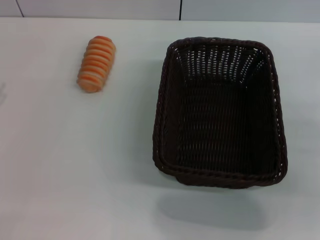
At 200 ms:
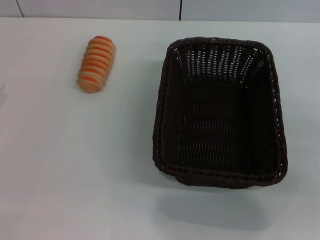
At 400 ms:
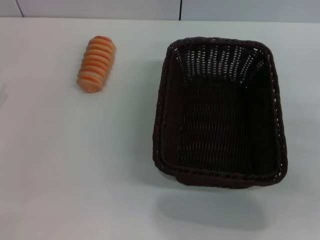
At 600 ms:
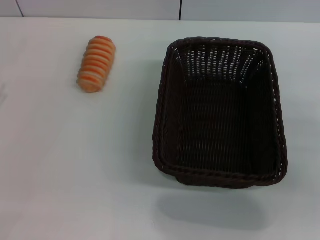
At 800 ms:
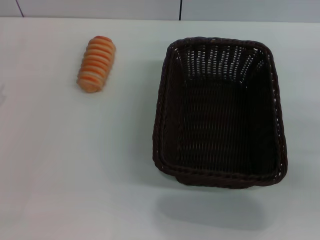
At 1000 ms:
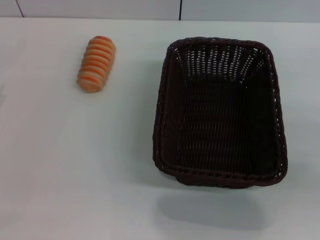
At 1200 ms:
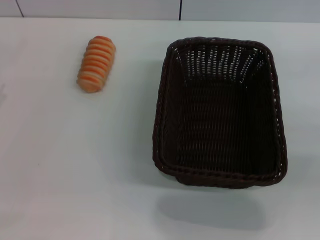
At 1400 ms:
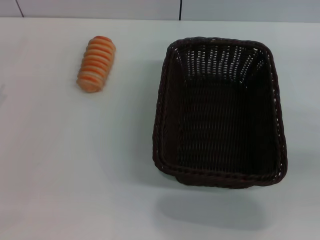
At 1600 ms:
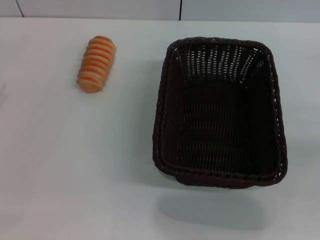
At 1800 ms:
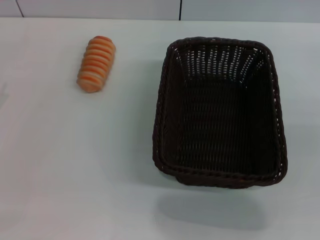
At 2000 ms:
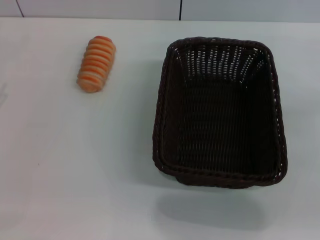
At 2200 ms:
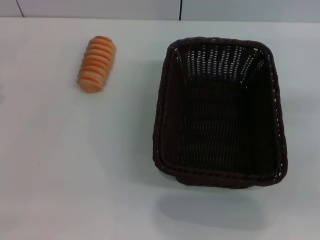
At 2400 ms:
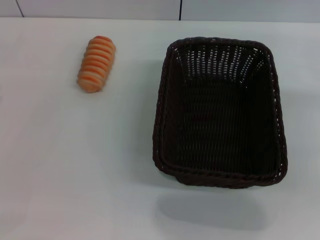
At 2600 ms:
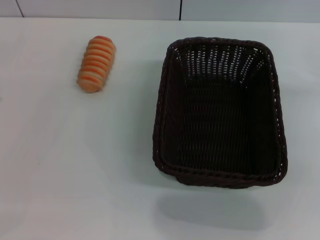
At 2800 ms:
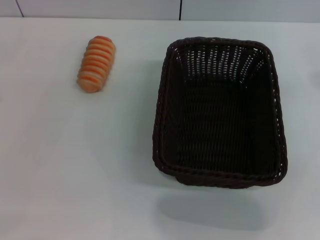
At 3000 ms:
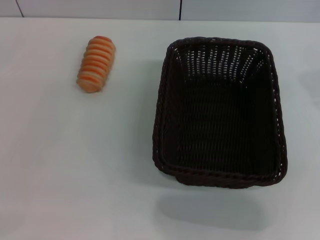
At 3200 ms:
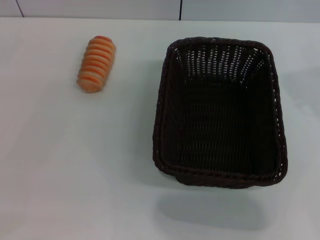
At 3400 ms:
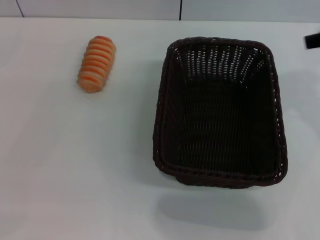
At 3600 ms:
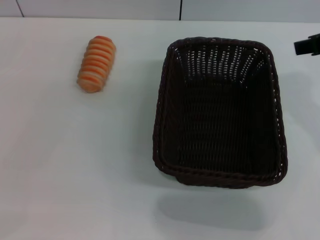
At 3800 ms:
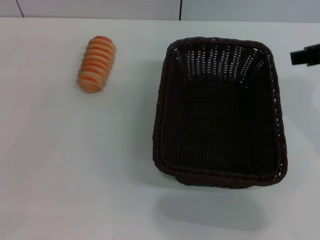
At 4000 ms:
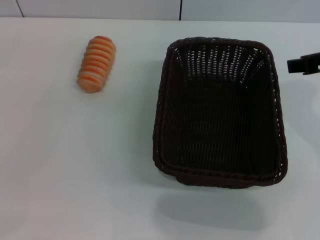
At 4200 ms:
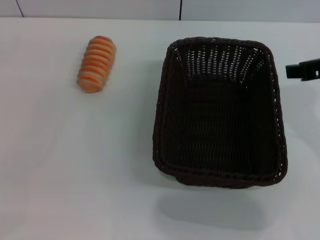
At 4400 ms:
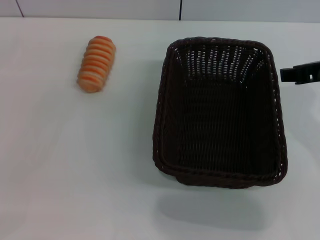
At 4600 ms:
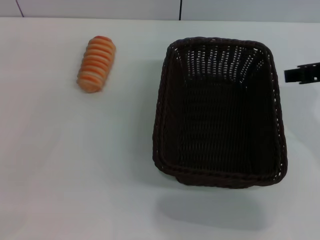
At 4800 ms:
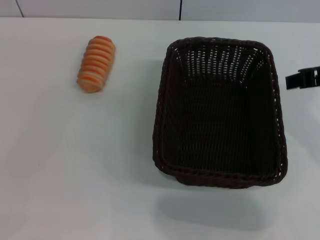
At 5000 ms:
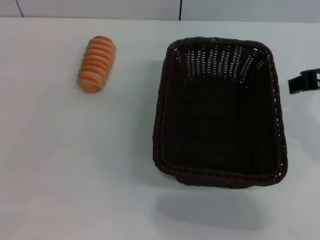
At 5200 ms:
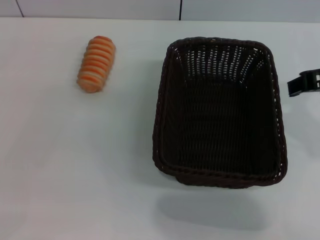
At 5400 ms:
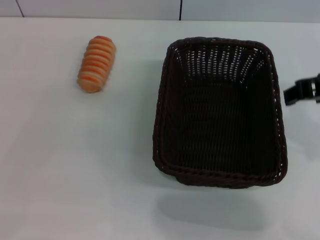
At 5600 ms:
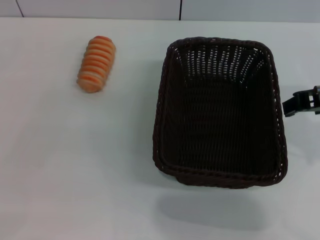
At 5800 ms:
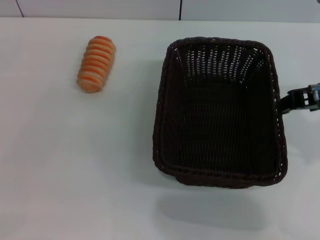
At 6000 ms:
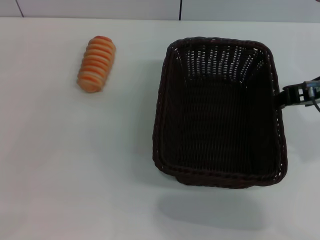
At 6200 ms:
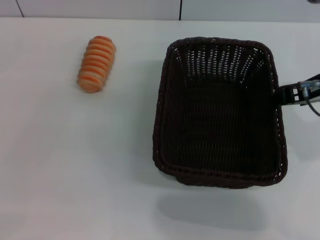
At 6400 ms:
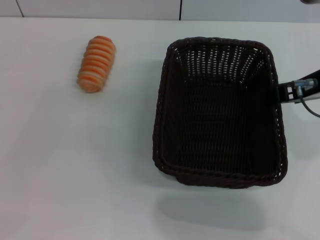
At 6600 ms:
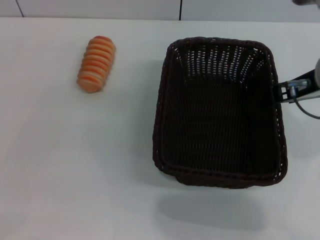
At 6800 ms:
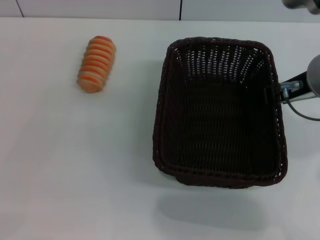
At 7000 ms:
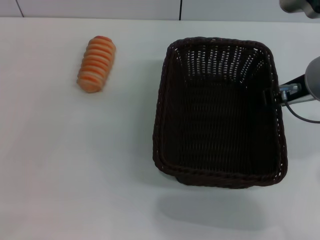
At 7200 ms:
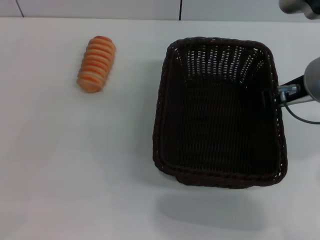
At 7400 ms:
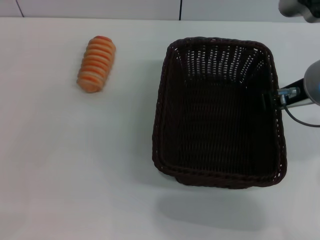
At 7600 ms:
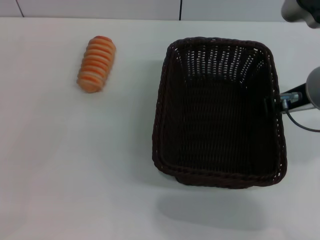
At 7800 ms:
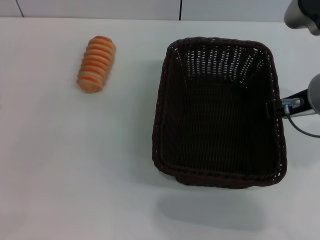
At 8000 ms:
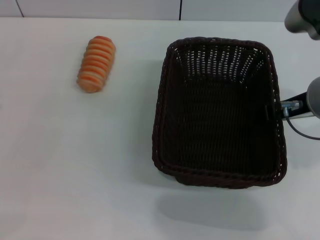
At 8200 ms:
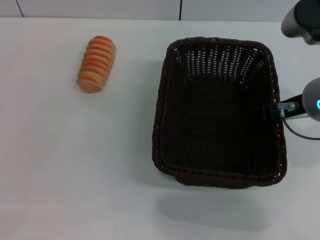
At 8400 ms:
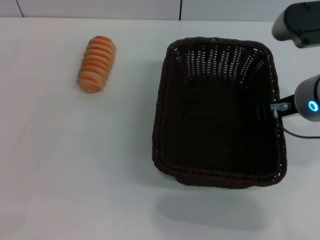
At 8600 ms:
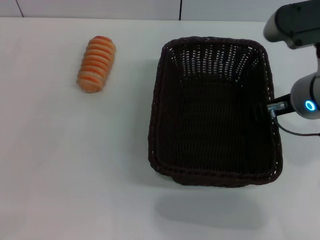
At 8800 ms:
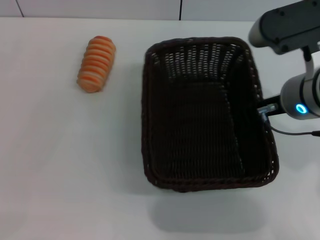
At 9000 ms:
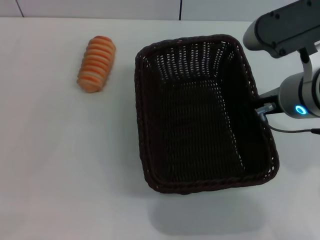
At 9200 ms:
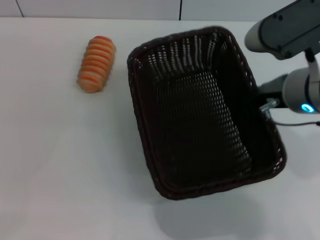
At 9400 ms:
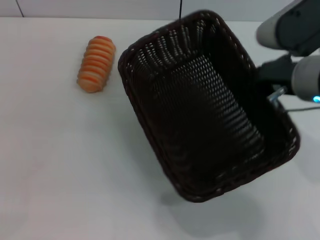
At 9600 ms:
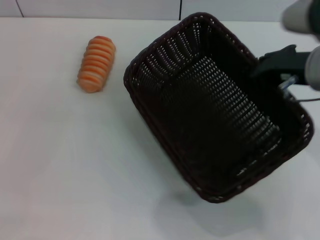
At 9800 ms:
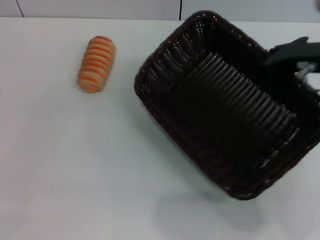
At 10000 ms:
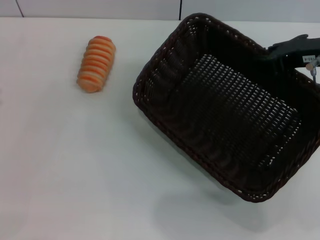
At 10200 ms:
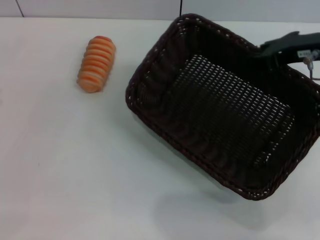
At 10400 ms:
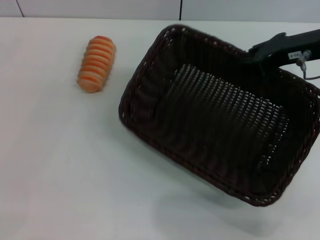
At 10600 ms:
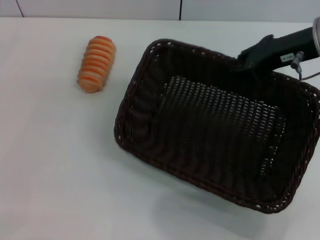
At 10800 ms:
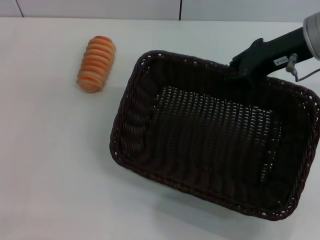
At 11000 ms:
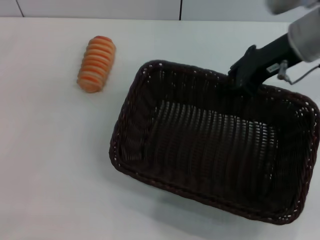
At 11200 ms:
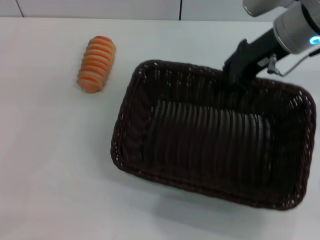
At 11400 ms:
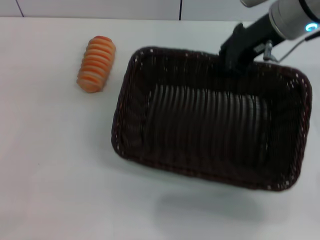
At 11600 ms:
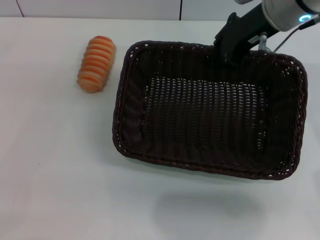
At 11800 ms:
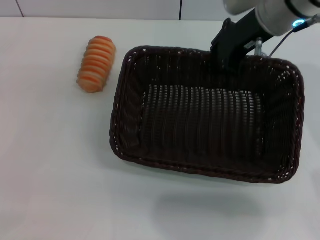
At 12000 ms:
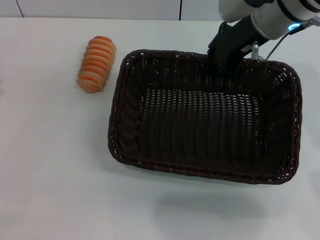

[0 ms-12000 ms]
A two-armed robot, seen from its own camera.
Step, 0 ms to 9200 ms: Pick up the dark basket with the right gripper.
1600 ms to 3000 ms: The right gripper is displaced to the left and forward by about 20 cm.
3000 ms to 4400 ms: The right gripper moves to the left and downward, approximately 10 cm.
4400 ms to 7600 ms: The grippers move only a little.
7600 ms to 9000 ms: The right gripper closes its fingers.
9000 ms to 10400 ms: The right gripper shifts approximately 10 cm to the right and forward.
10400 ms to 12000 ms: The right gripper goes some 10 cm to the left.

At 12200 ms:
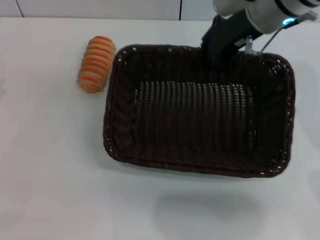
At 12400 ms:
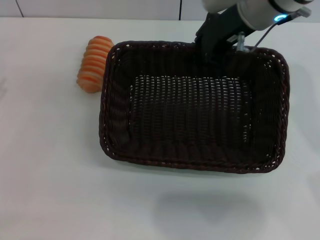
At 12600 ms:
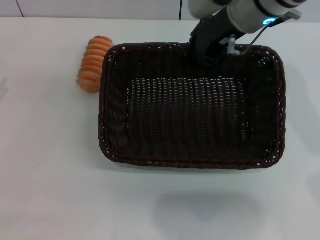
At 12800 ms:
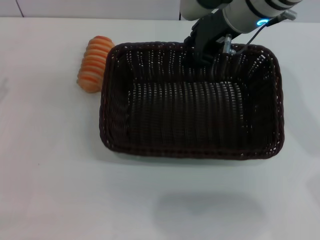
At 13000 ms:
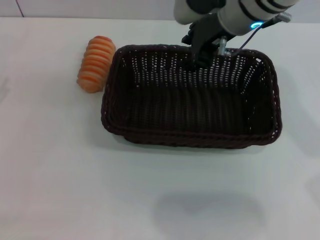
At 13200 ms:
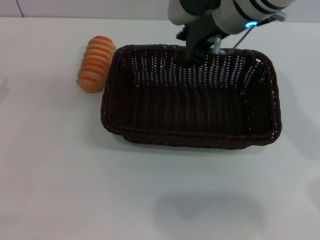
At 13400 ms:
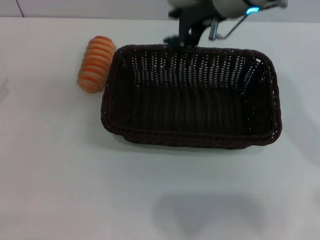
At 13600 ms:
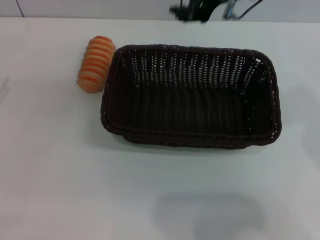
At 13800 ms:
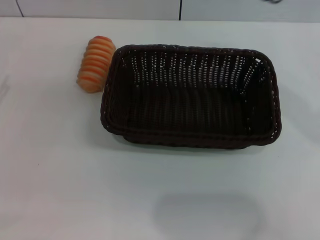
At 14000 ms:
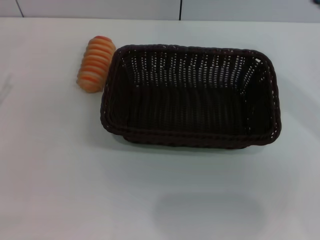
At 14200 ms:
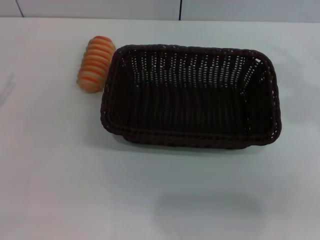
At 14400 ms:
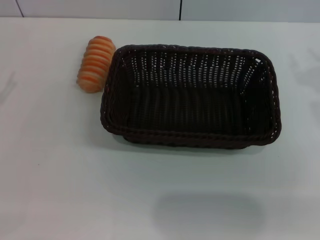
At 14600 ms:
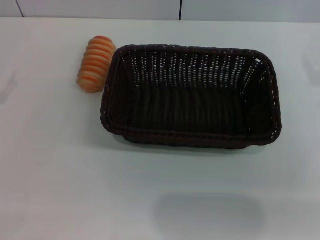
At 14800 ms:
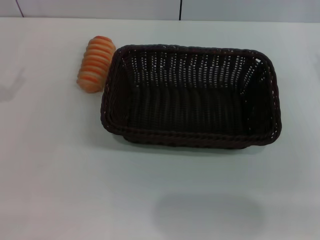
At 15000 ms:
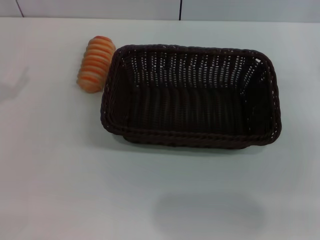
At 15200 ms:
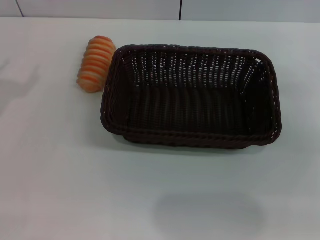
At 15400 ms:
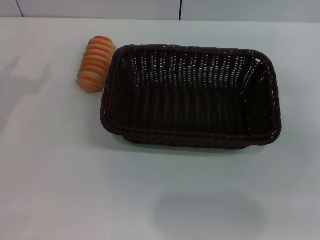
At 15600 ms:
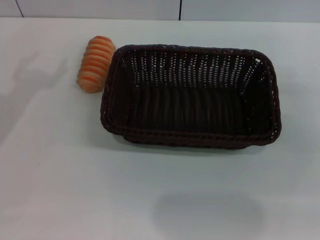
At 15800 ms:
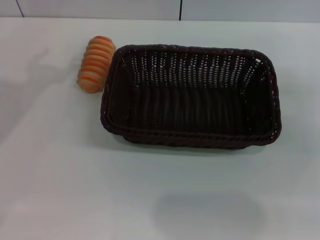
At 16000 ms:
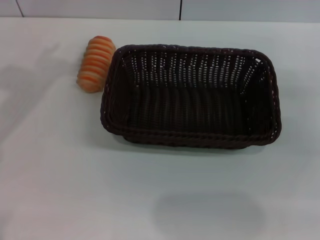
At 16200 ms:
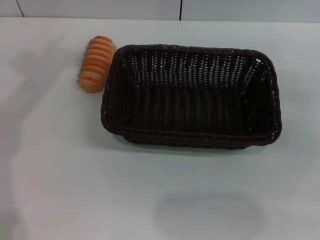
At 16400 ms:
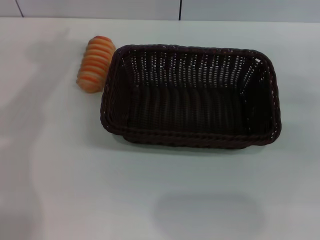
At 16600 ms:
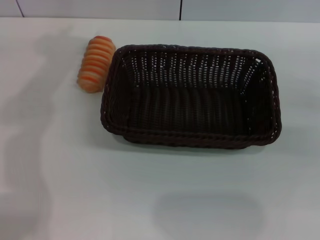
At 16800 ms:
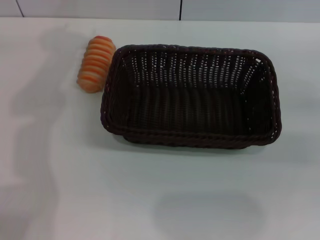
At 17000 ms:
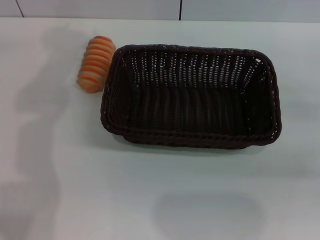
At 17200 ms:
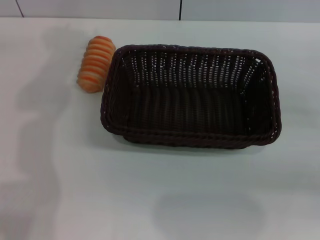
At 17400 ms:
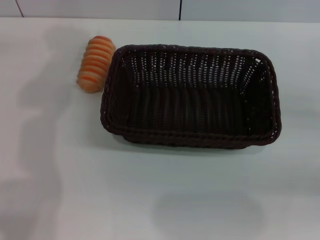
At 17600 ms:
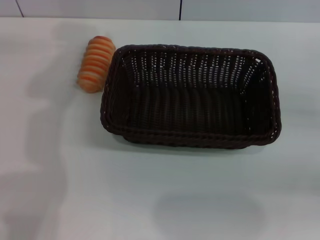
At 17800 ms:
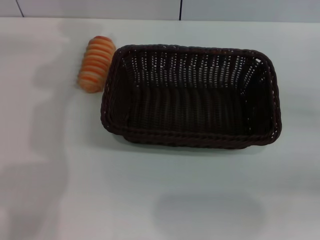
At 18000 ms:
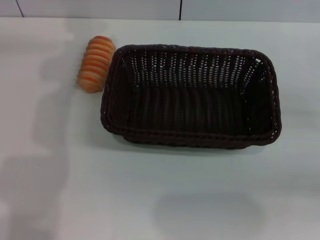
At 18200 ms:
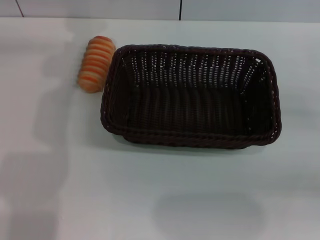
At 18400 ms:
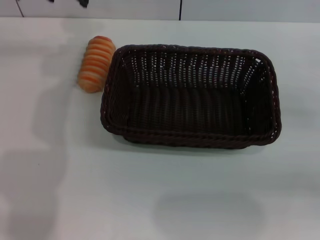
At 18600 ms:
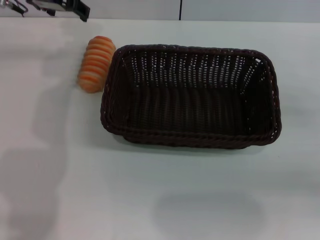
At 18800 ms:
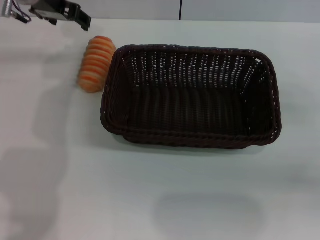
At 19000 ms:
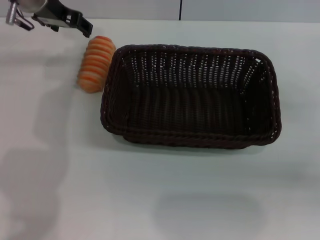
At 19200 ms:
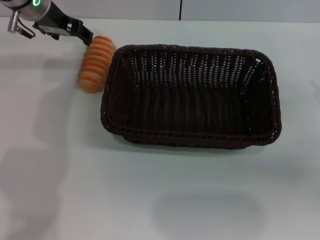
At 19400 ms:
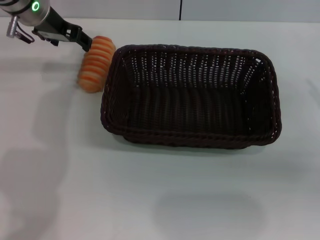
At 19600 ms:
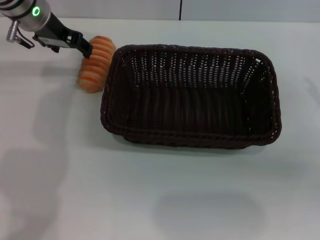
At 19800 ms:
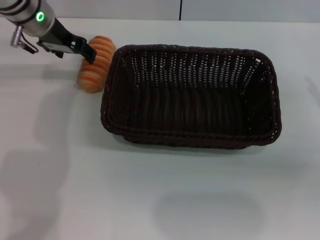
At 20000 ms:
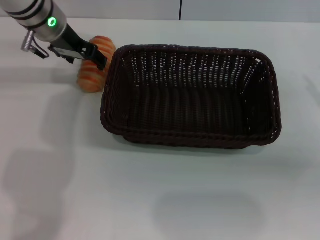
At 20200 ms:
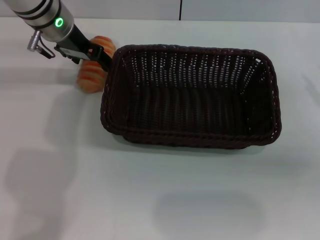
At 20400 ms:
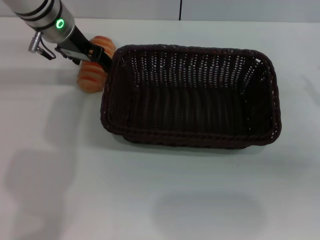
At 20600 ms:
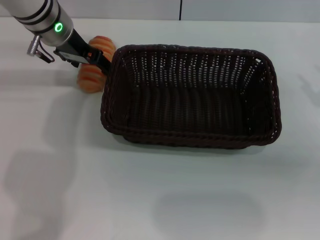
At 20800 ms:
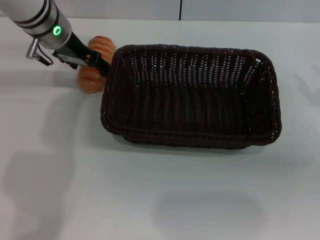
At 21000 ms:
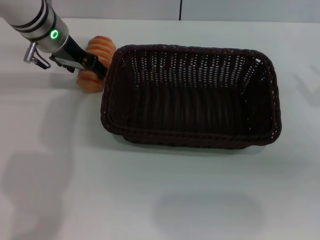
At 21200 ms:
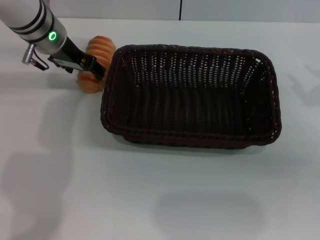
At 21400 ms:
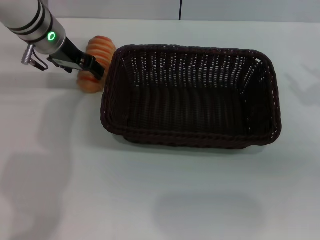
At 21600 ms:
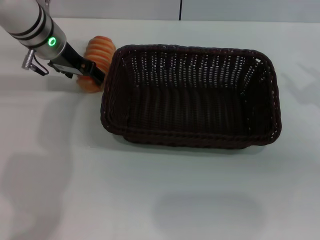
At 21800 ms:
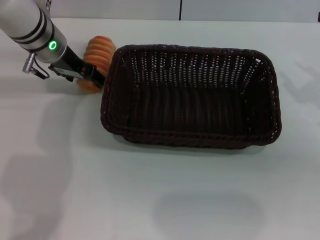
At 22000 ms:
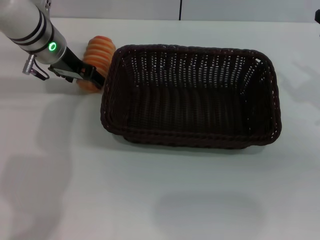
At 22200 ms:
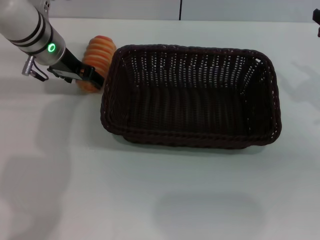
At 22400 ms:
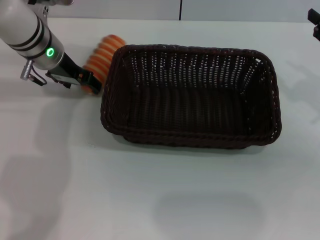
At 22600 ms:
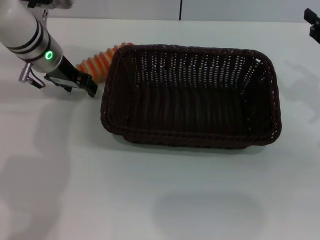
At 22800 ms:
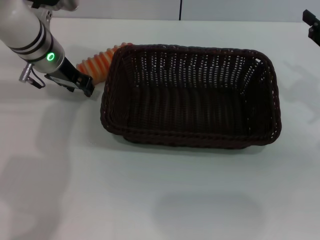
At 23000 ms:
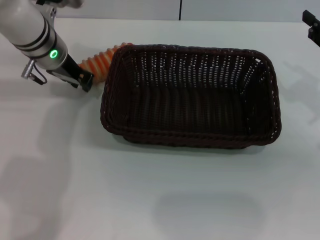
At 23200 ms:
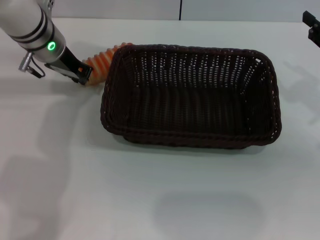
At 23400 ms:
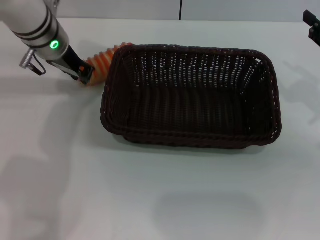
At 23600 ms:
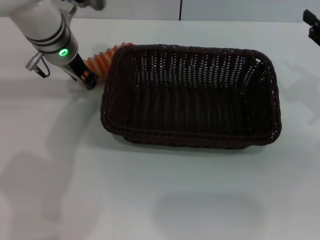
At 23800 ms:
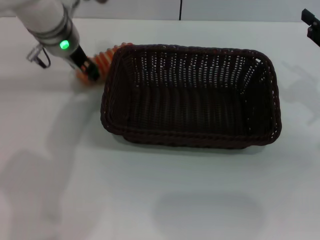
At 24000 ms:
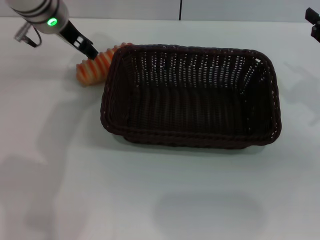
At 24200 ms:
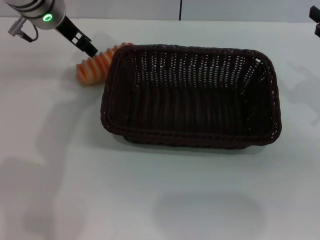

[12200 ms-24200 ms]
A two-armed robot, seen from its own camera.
12200 ms to 13800 ms: The right gripper moves backward and upward, approximately 10 cm, and opens up.
13800 ms to 15200 ms: The right gripper shifts approximately 20 cm to the right and downward.
15200 ms to 16600 ms: The left gripper moves forward, upward and to the right, about 20 cm.
18200 ms to 19800 ms: The left gripper shifts approximately 10 cm downward.
19800 ms to 22600 ms: The grippers make only small movements.
22600 ms to 24200 ms: The left gripper is displaced upward by roughly 5 cm, and closes, then opens again.
